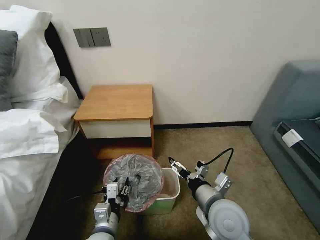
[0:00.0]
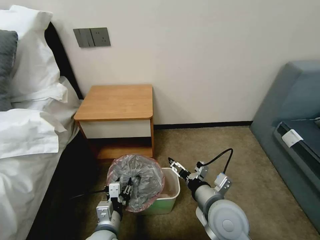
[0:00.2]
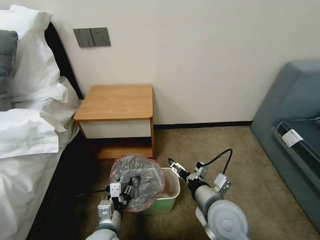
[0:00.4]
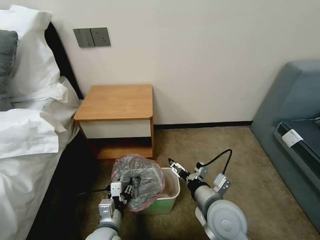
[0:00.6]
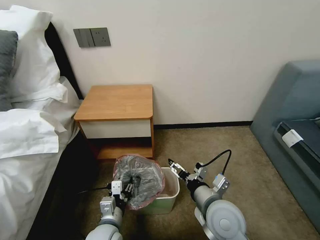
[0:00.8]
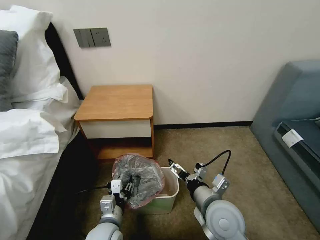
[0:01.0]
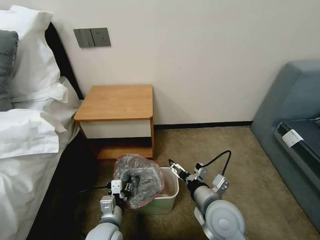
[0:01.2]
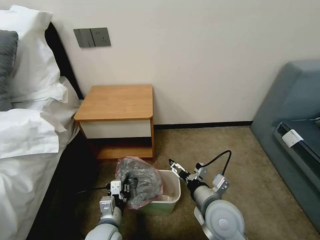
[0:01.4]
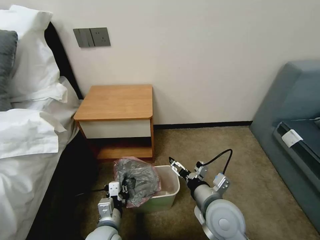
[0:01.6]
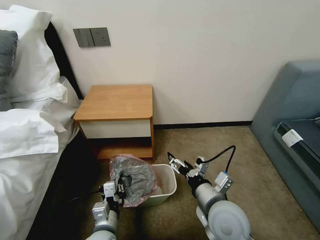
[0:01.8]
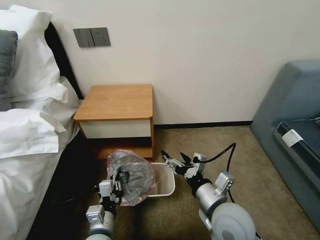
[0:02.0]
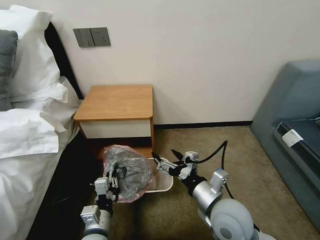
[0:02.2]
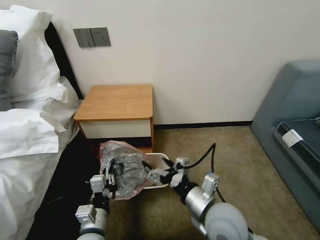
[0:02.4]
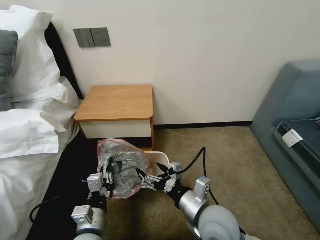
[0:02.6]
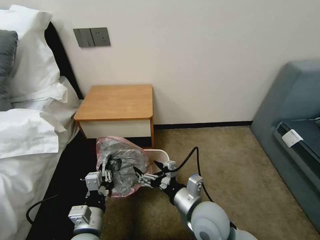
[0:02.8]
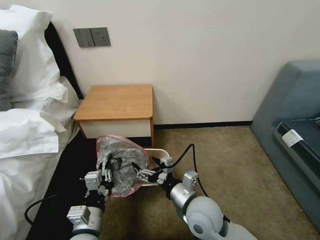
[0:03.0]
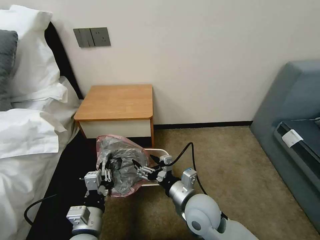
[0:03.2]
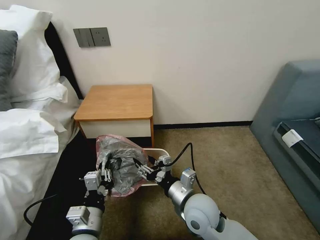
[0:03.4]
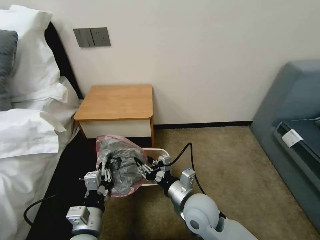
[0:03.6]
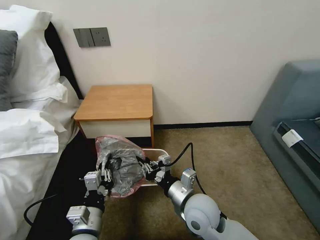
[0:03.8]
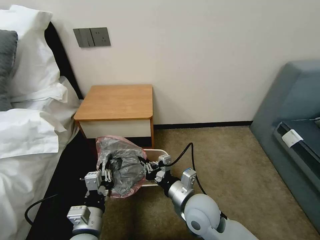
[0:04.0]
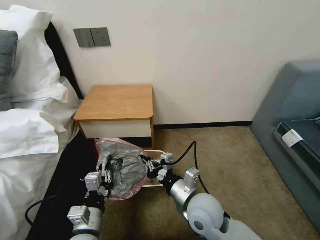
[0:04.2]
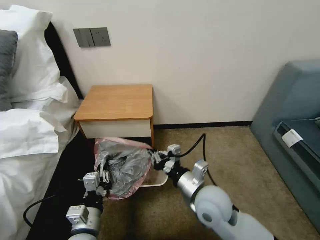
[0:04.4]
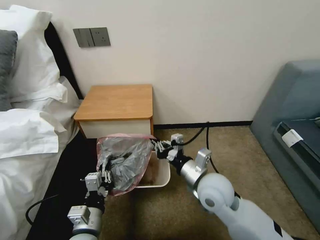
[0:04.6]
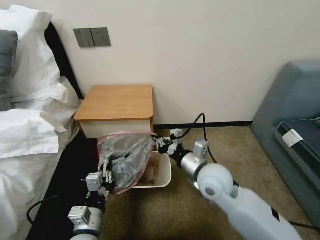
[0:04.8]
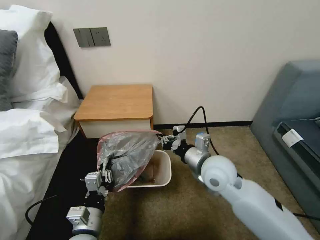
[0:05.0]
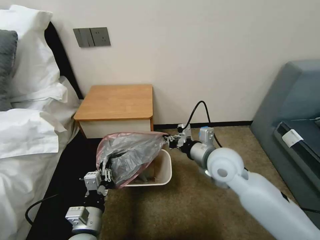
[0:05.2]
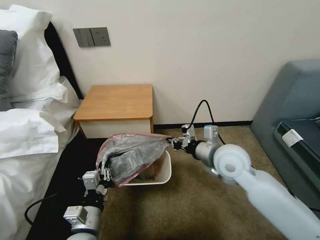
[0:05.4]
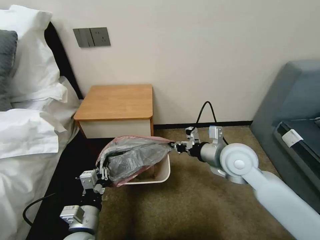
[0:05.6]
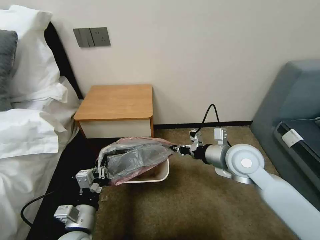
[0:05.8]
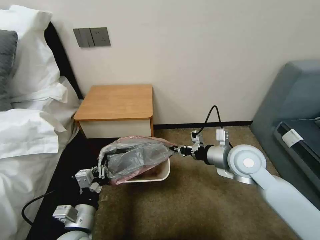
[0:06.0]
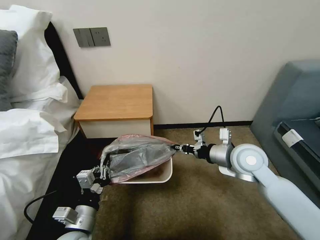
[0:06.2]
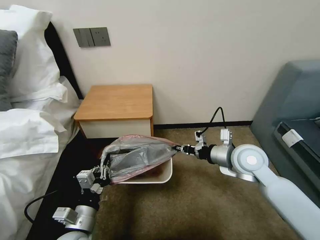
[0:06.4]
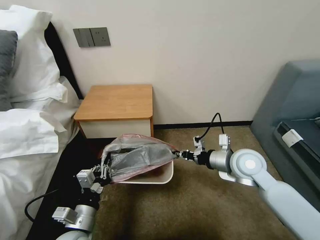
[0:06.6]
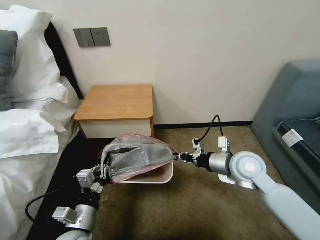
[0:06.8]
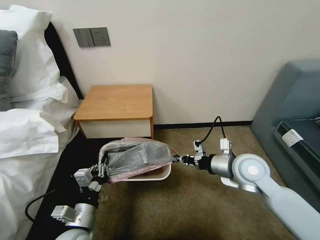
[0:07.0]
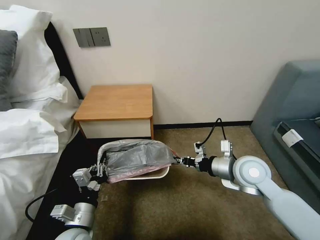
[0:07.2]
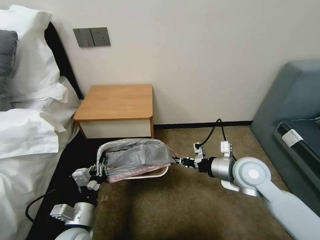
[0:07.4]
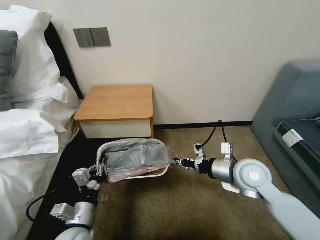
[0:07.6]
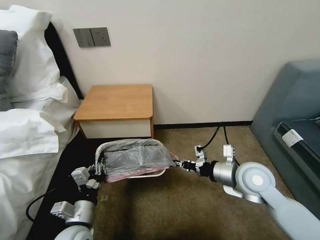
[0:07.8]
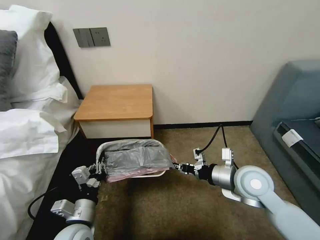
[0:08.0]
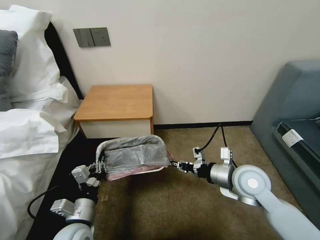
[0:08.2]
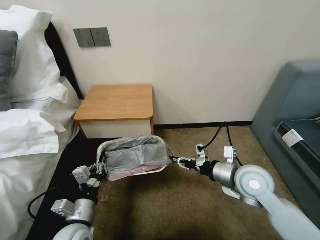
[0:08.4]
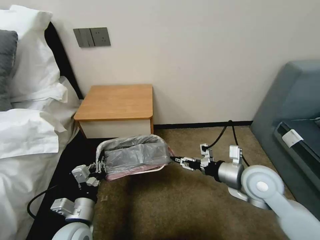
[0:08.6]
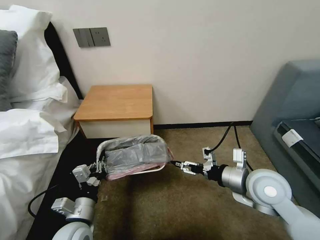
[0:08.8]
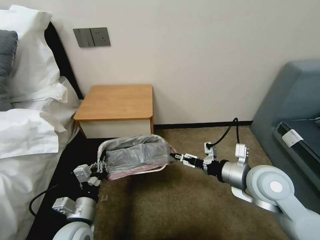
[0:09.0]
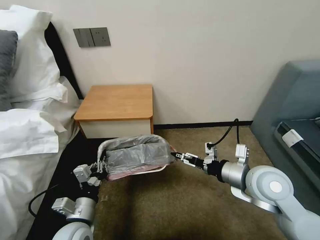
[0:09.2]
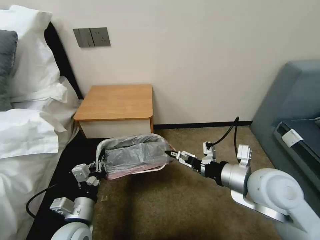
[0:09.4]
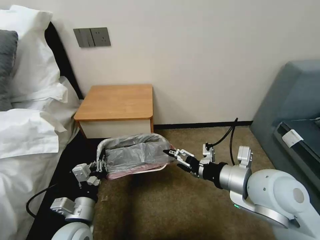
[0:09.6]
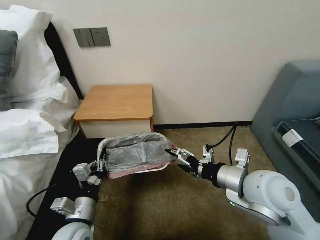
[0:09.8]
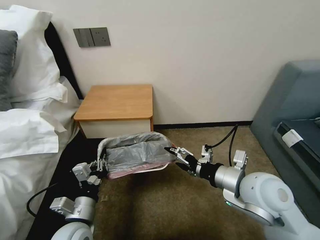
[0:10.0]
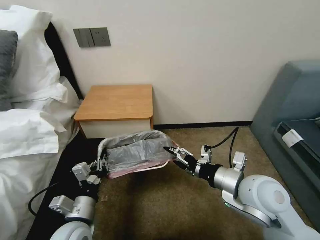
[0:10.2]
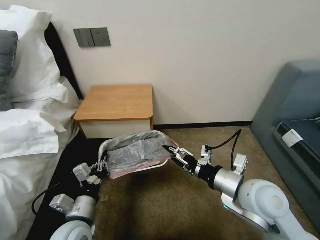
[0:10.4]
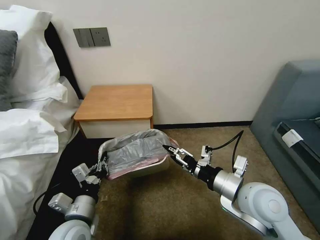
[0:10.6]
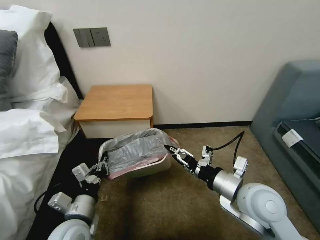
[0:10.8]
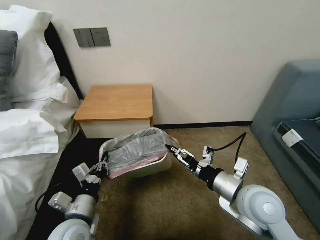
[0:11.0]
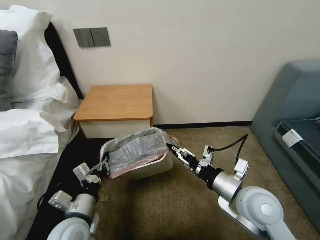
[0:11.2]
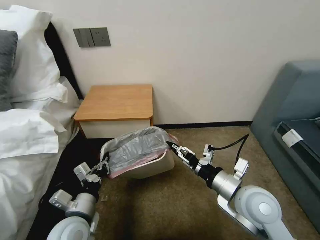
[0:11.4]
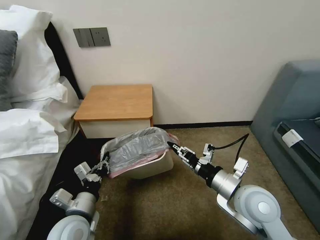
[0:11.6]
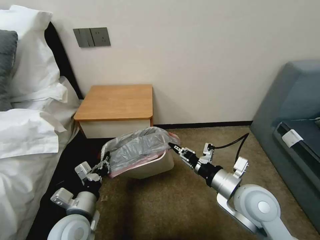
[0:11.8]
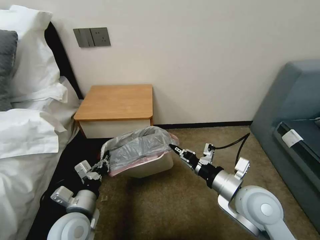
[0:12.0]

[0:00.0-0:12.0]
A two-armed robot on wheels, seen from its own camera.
Task of the whole recording: Pick up the garbage bag from the table and place it over the trash can.
0:00.0 to 0:01.6: The left gripper closes.
0:01.6 to 0:03.0: The left gripper shifts some 5 cm upward.
0:03.0 to 0:04.4: The right gripper closes its fingers.
0:04.4 to 0:06.0: The right gripper goes approximately 15 cm to the right, forward and upward.
0:06.0 to 0:07.6: The grippers make only small movements.
0:07.6 to 0:09.0: The right gripper shifts by about 5 cm, and opens.
0:10.4 to 0:12.0: The right gripper closes up.

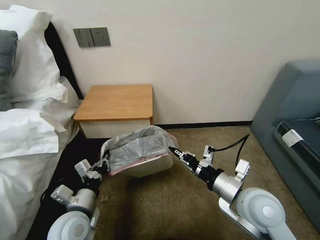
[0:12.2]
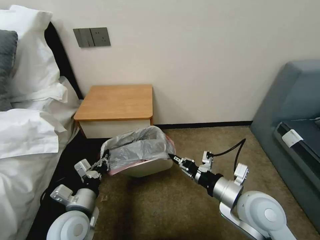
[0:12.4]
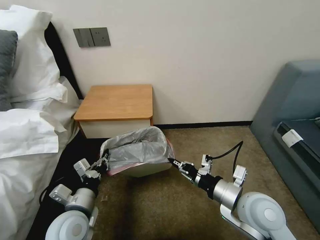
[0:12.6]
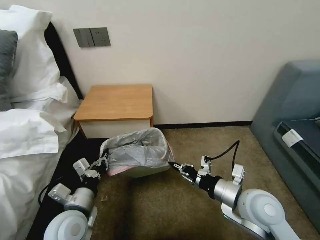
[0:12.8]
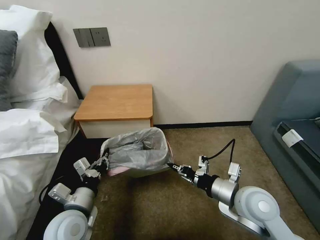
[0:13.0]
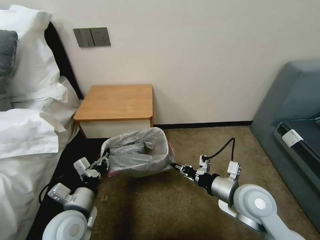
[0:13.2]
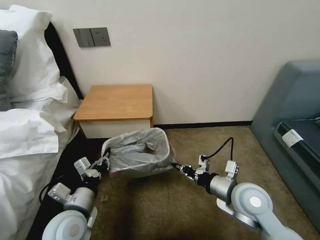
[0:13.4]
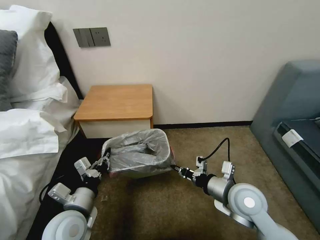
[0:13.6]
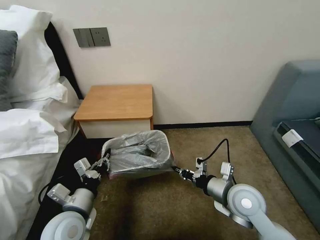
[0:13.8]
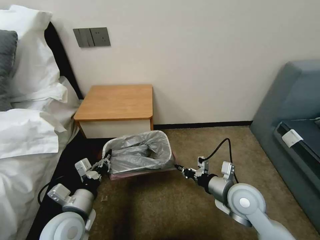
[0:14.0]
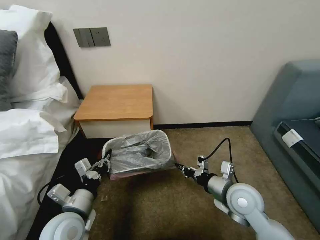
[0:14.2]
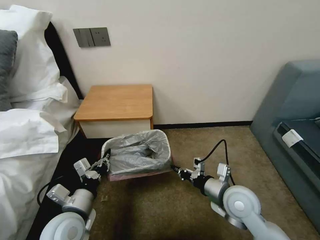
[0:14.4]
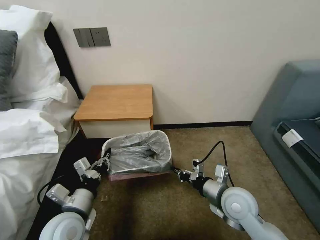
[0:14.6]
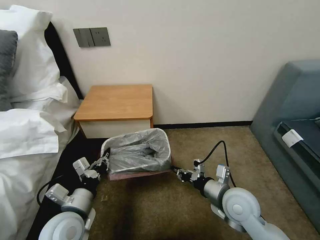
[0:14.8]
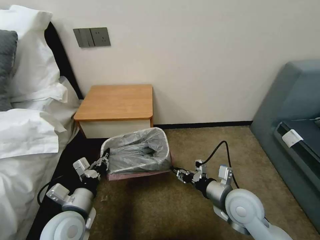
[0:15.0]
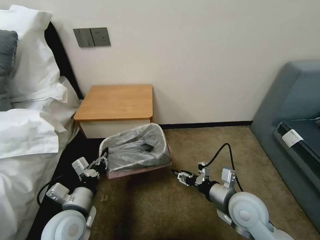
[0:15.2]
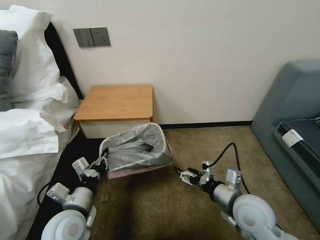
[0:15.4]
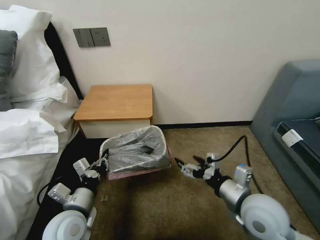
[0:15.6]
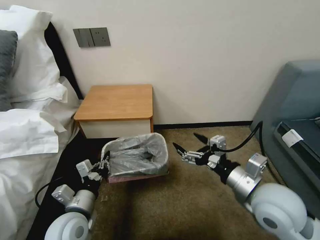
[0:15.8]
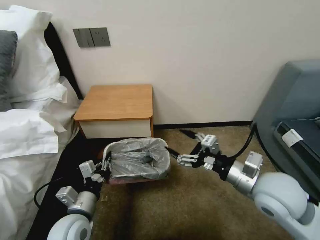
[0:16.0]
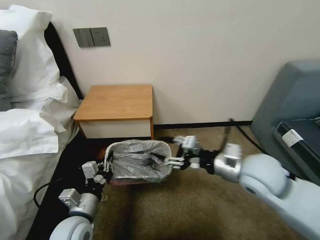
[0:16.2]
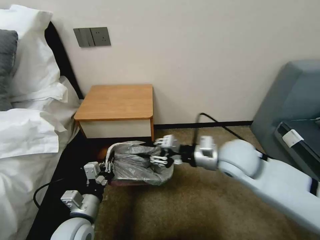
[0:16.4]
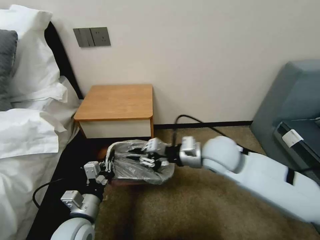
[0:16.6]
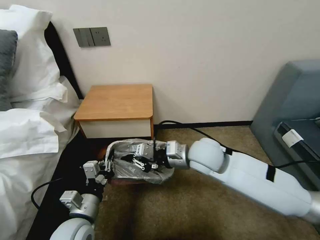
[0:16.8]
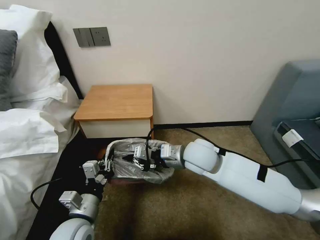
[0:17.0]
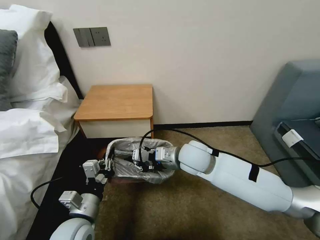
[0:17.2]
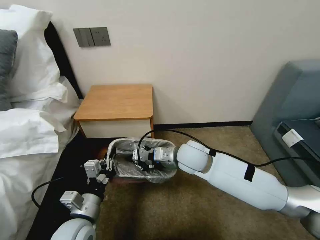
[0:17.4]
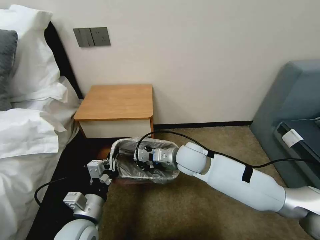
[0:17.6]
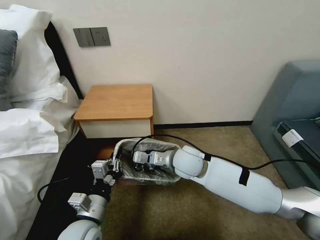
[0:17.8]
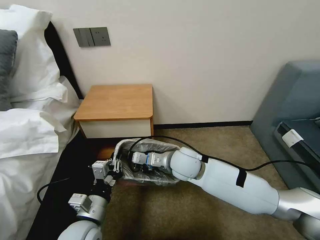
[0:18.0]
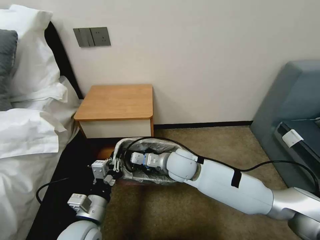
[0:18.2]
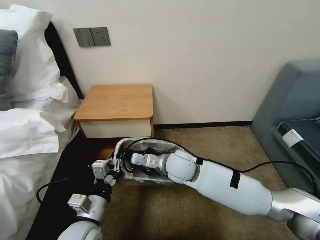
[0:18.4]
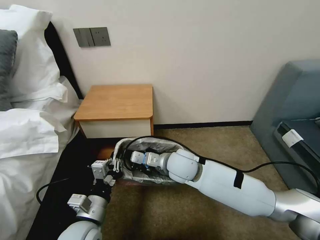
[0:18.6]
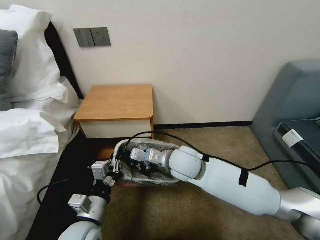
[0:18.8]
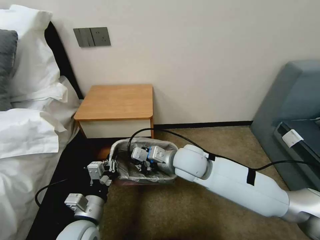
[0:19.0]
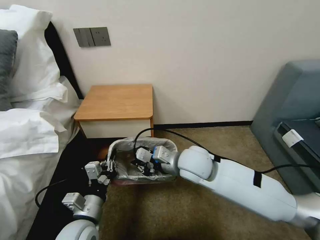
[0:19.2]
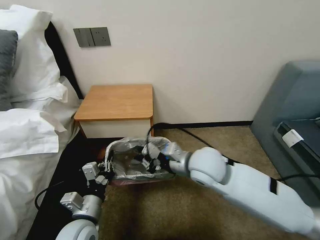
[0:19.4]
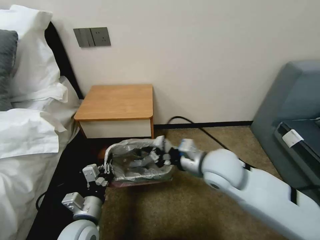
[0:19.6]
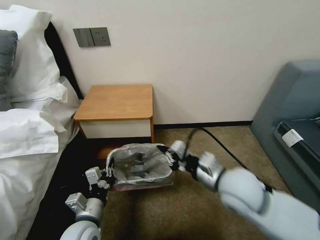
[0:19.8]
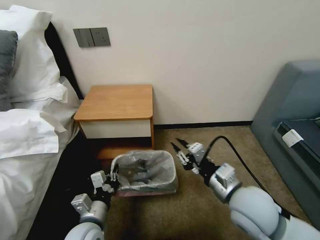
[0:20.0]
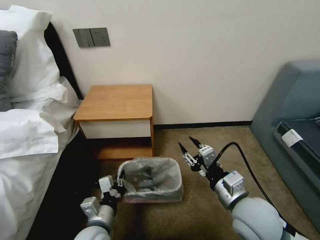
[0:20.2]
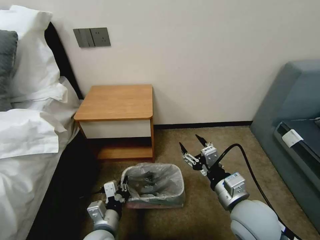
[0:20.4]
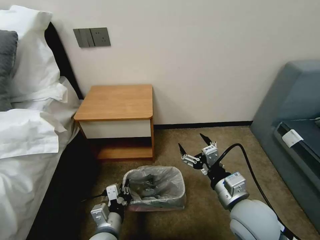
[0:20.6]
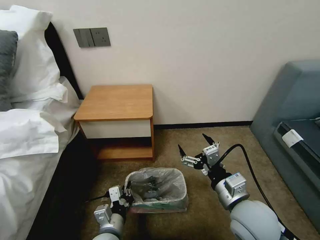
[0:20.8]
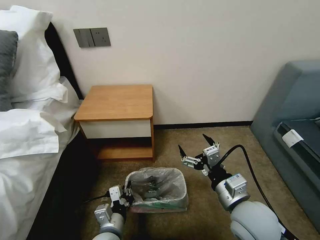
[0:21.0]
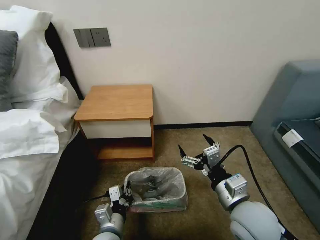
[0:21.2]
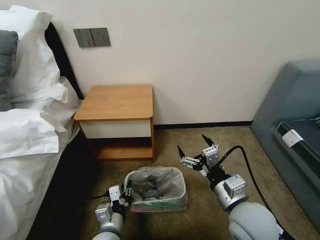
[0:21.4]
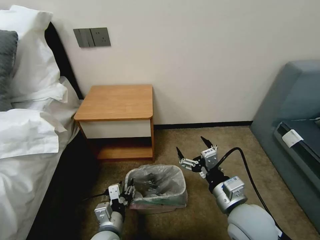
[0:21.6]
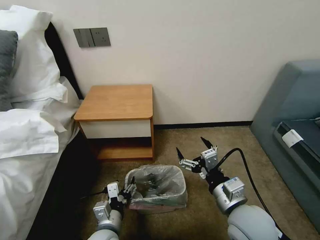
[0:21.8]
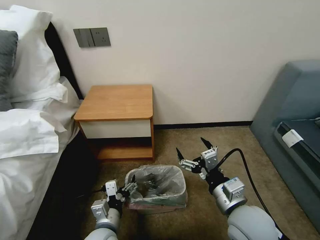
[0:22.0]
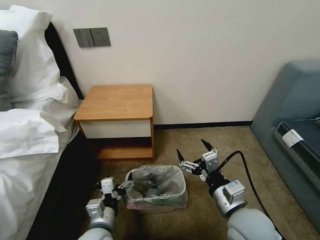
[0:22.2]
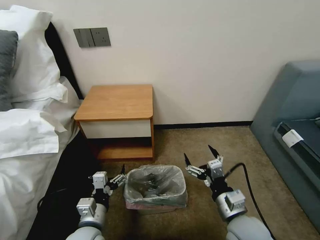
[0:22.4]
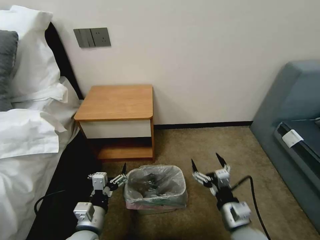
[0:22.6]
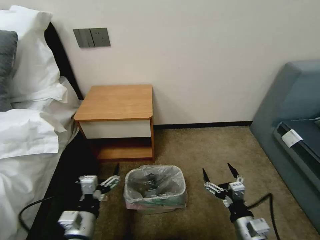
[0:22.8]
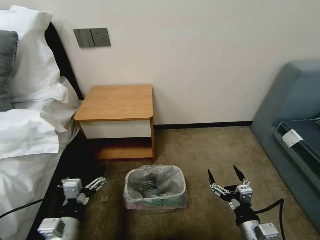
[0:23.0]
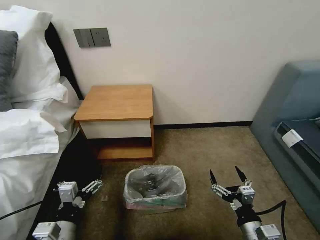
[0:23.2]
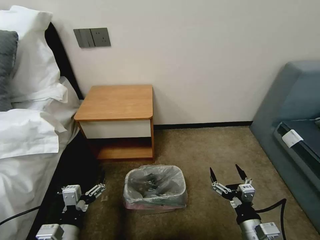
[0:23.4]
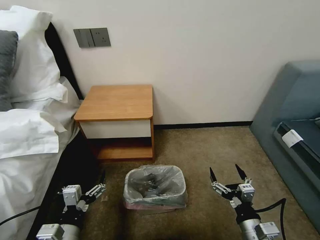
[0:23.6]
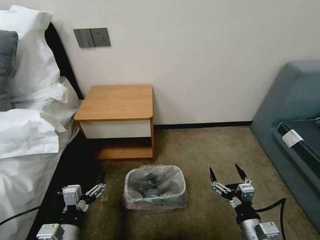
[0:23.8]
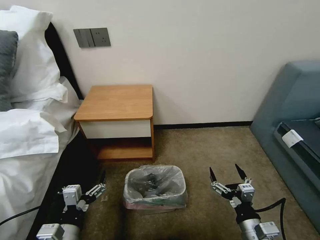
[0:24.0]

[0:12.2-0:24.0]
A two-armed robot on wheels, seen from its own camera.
Task of the whole recording: Pick up the garbage bag from the table and place it over the trash can.
0:12.2 to 0:13.6: The right gripper goes some 5 cm downward.
0:13.6 to 0:15.2: The right gripper opens its fingers.
0:15.2 to 0:16.6: The right gripper heads upward, forward and to the left, covering roughly 15 cm, and closes its fingers.
0:16.6 to 0:18.2: The right gripper travels to the left and downward by about 10 cm.
0:18.2 to 0:19.6: The right gripper heads to the right, upward and backward, covering roughly 15 cm.
0:19.6 to 0:21.0: The left gripper shifts approximately 10 cm to the right and downward. Meanwhile the right gripper is displaced backward and downward by approximately 10 cm, and opens its fingers.
0:21.0 to 0:22.6: The left gripper ends up roughly 5 cm from where it was, and opens up. The right gripper goes some 10 cm downward.
0:22.6 to 0:24.0: The left gripper shifts roughly 5 cm backward. Meanwhile the right gripper shifts by approximately 5 cm.
